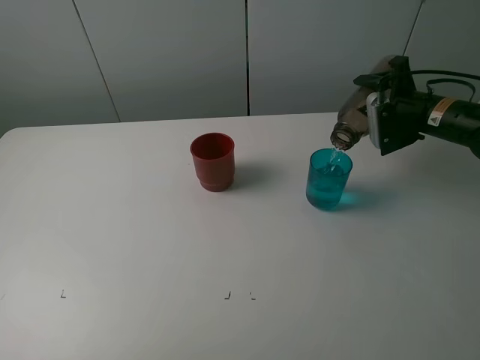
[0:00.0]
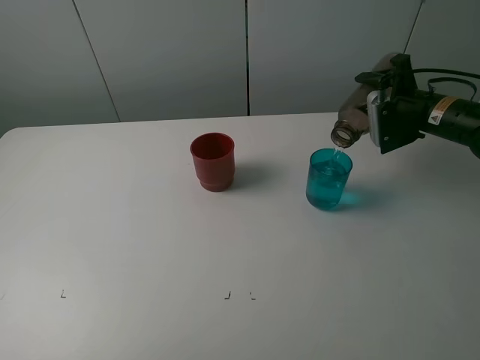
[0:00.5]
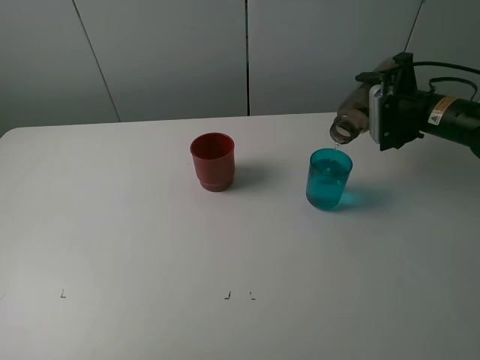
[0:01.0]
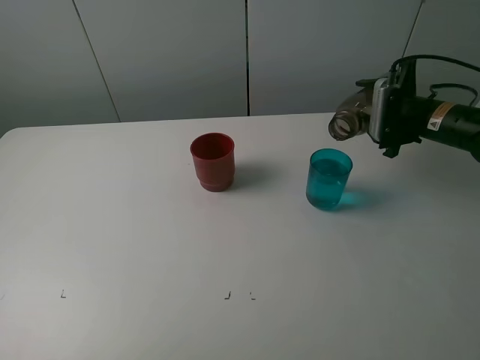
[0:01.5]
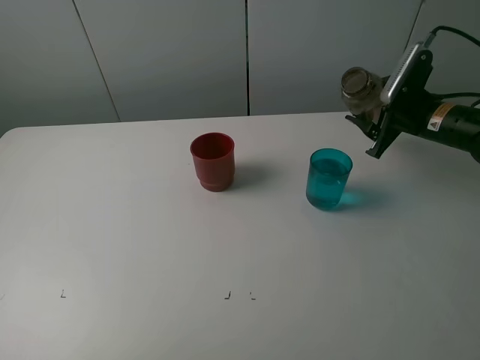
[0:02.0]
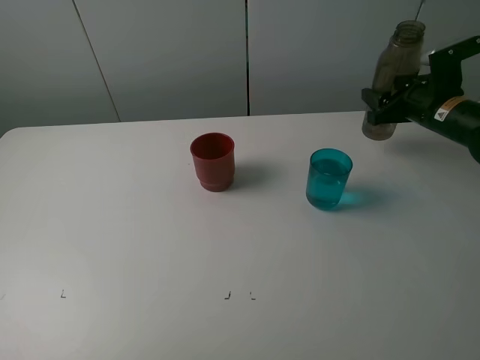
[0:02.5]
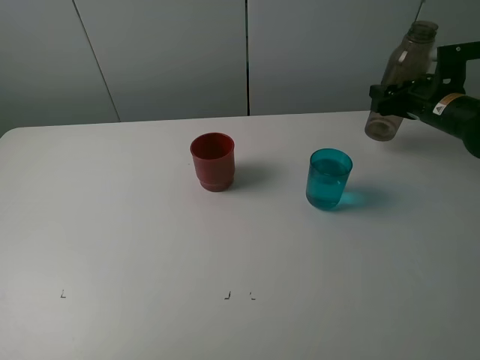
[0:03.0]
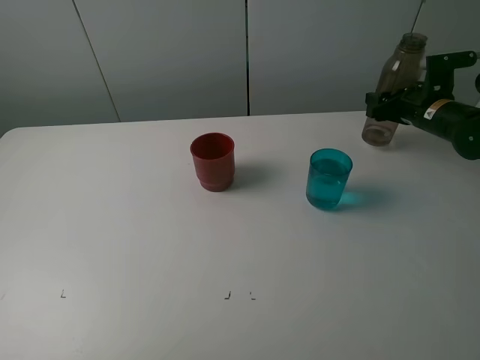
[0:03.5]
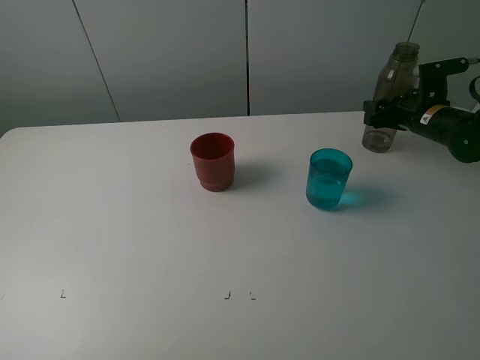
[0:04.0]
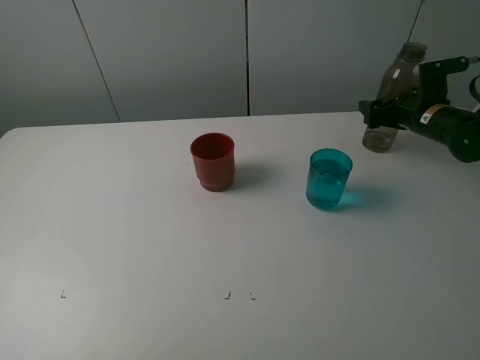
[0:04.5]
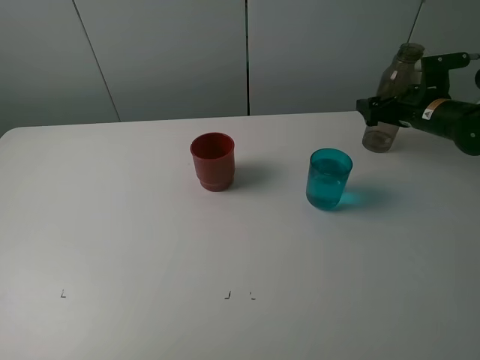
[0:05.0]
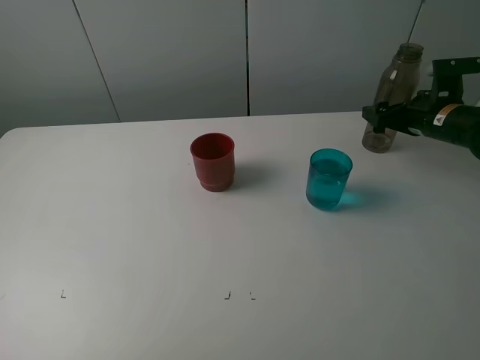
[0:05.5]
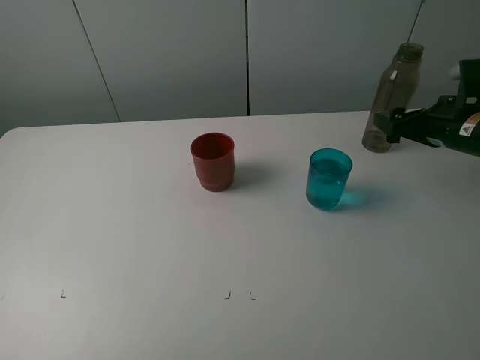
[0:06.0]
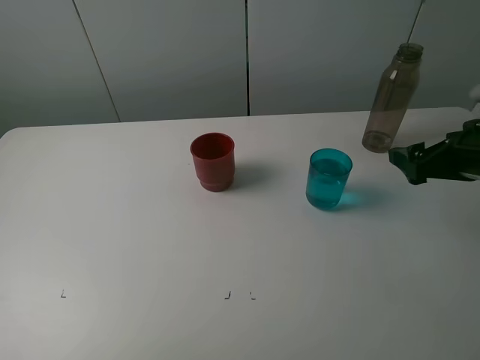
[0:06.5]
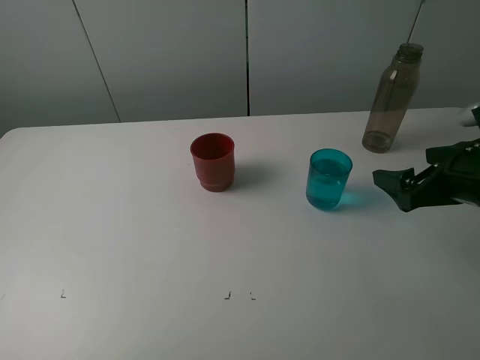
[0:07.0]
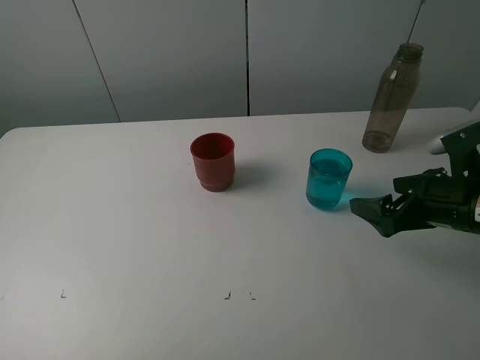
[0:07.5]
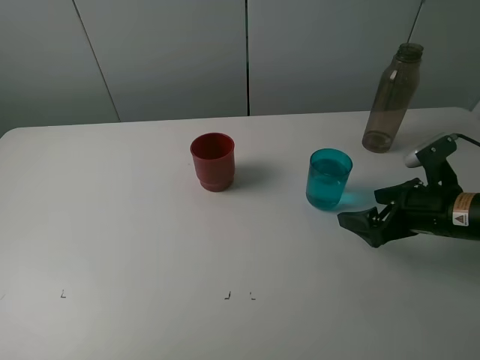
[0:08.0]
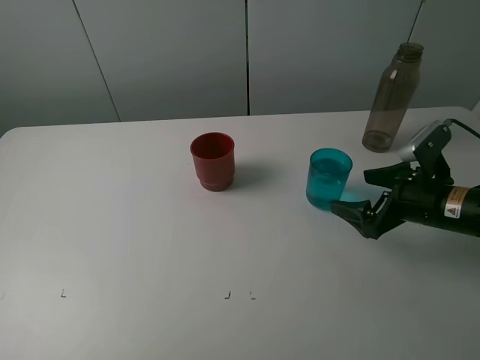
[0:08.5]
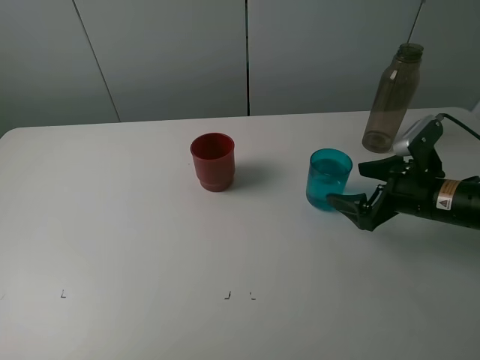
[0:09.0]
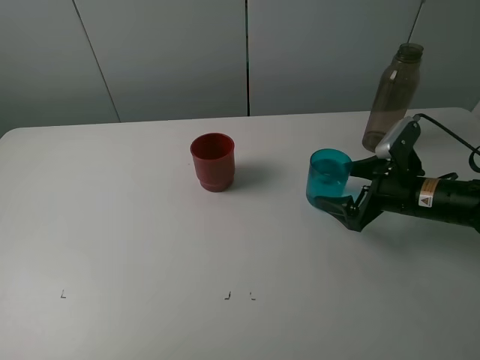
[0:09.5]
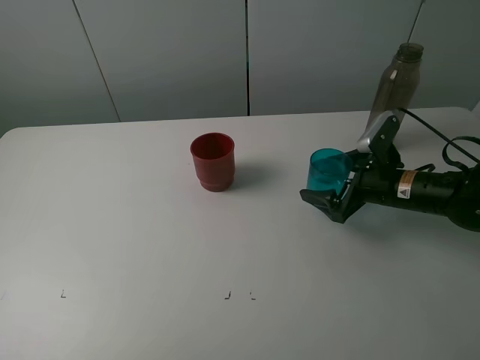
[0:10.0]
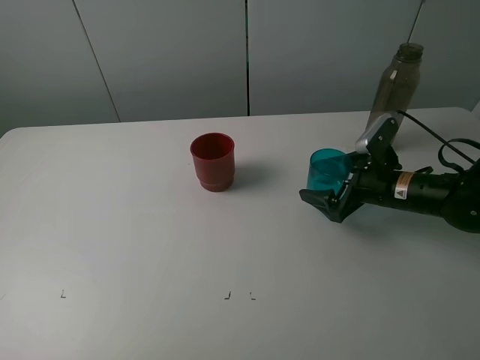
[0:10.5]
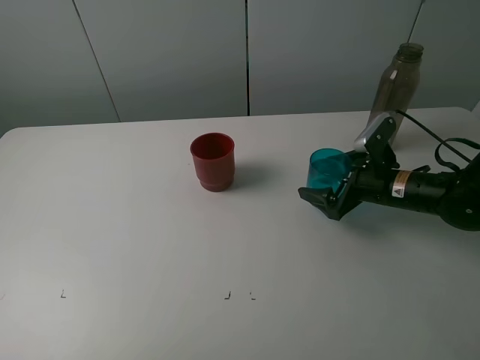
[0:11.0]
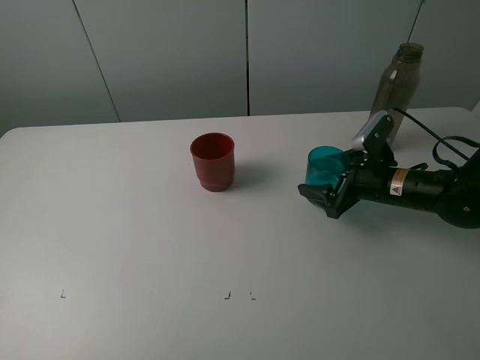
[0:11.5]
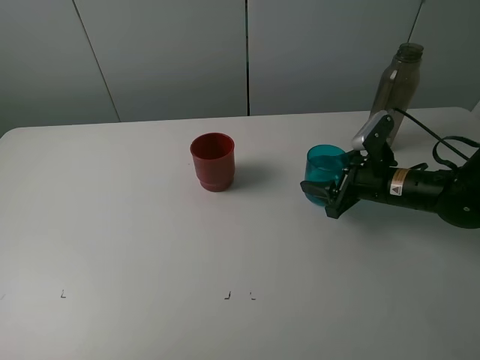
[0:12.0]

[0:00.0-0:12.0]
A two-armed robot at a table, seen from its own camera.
Task of the whole recording: pick up the bottle and pour water into the cup, then pick up the cup containing water and pour it into another cup.
Step, 0:01.5 to 0:04.5: Place the brown bottle with the right gripper.
Step, 0:05.0 to 0:11.0: Grasp the blue cup with the right gripper.
0:02.0 to 0:04.0: The right gripper shifts by roughly 5 cm.
0:04.0 to 0:06.0: The right gripper travels backward and upward by roughly 10 cm, and opens its fingers.
0:06.0 to 0:08.0: The right gripper goes some 10 cm backward and downward.
0:08.0 to 0:10.0: The right gripper is displaced forward by approximately 5 cm.
0:10.0 to 0:12.0: The right gripper closes its fingers.

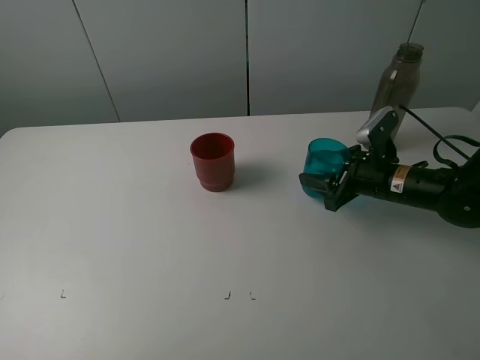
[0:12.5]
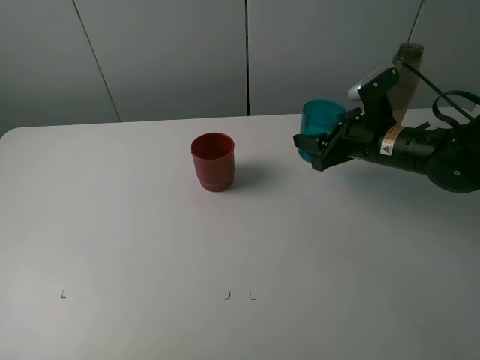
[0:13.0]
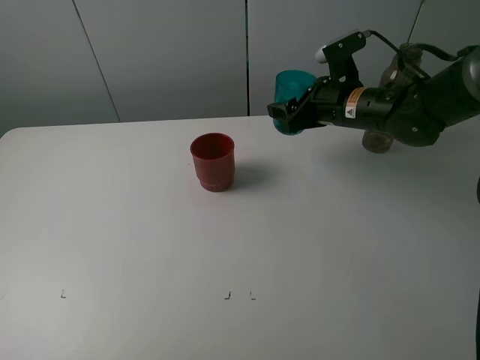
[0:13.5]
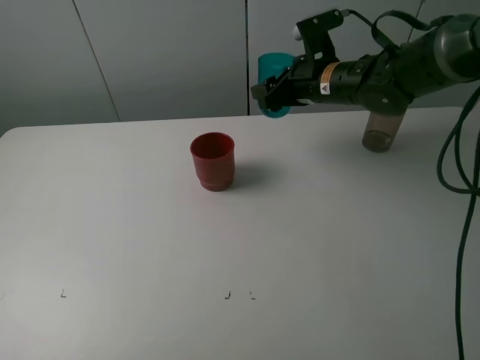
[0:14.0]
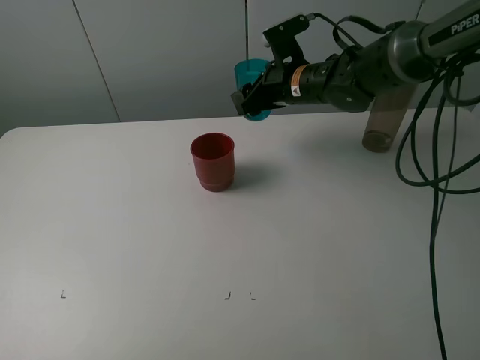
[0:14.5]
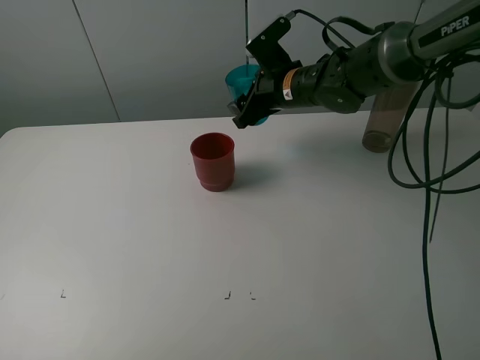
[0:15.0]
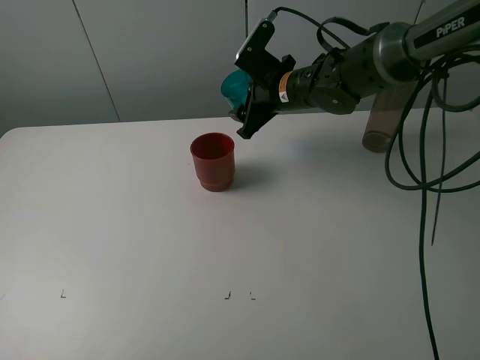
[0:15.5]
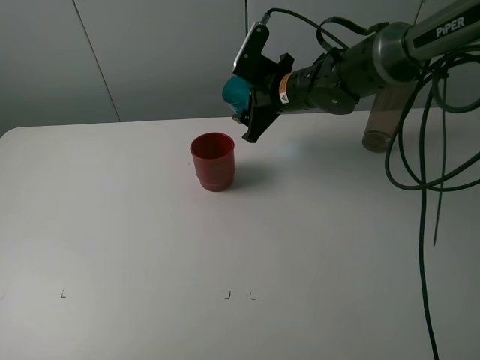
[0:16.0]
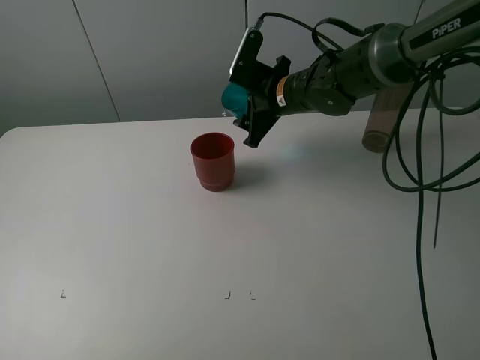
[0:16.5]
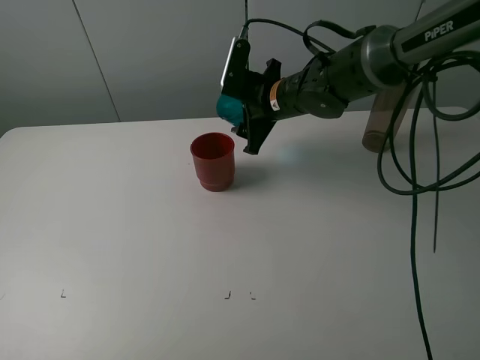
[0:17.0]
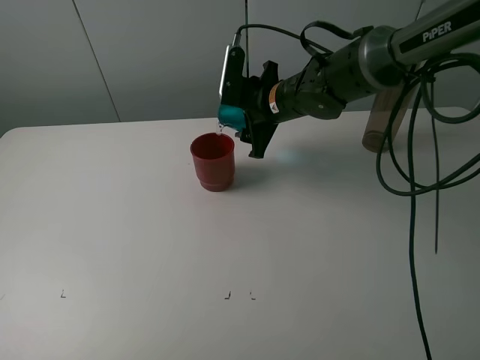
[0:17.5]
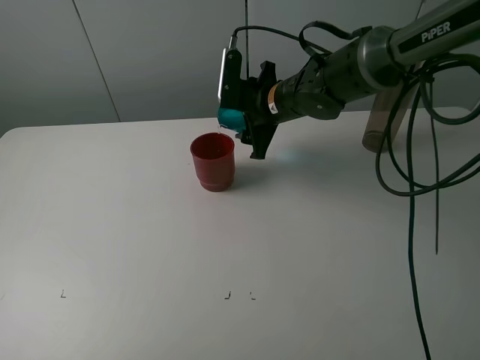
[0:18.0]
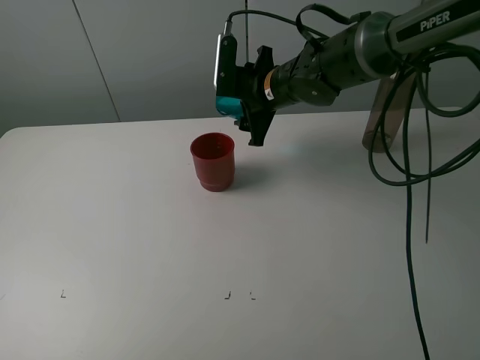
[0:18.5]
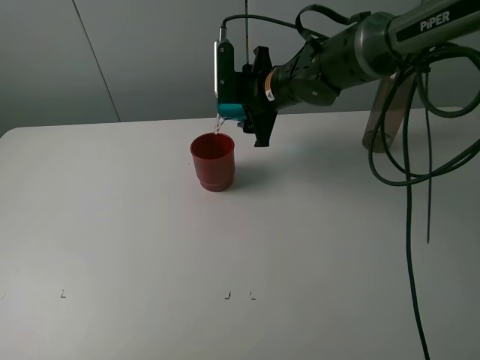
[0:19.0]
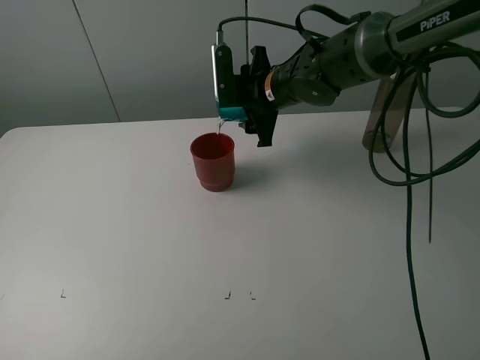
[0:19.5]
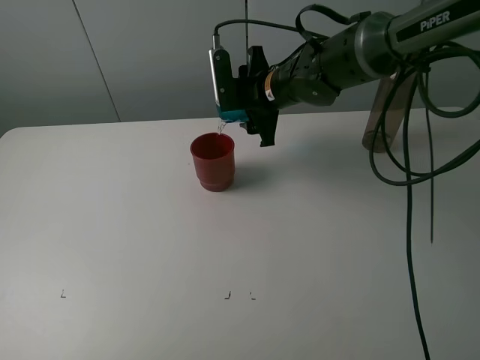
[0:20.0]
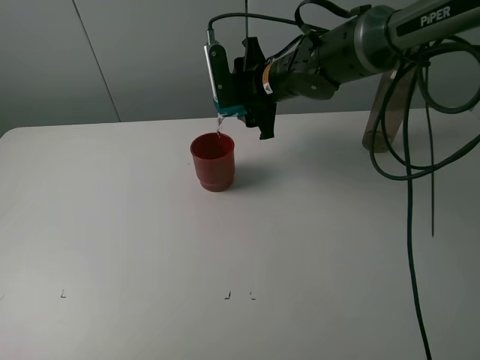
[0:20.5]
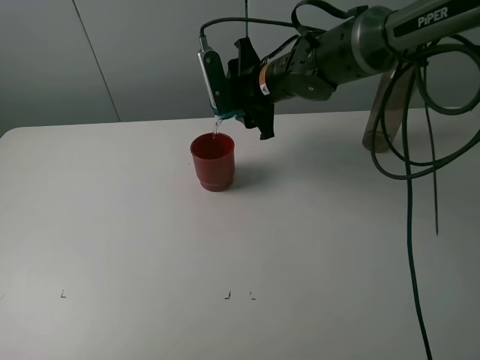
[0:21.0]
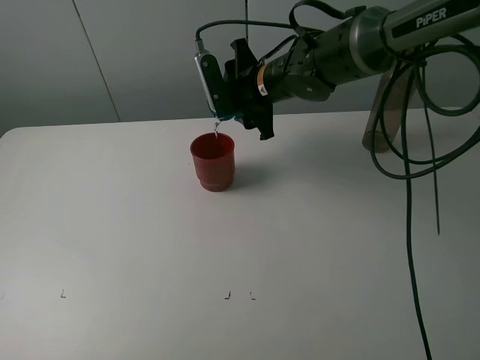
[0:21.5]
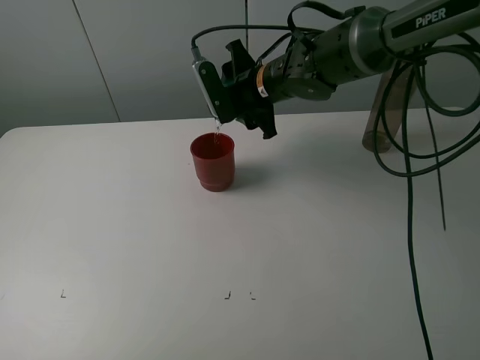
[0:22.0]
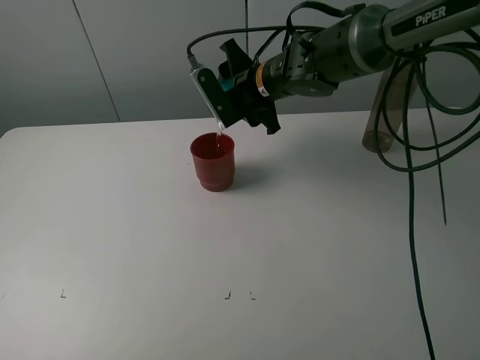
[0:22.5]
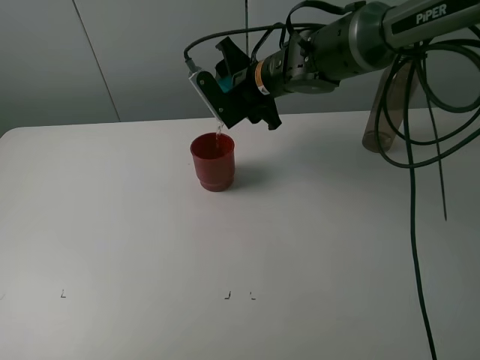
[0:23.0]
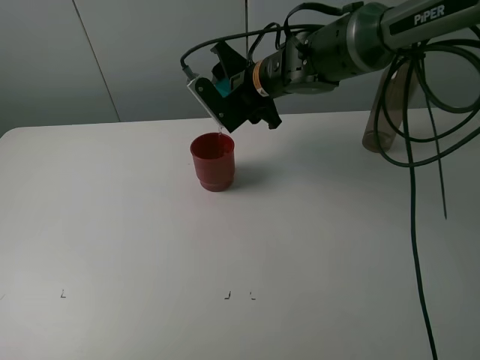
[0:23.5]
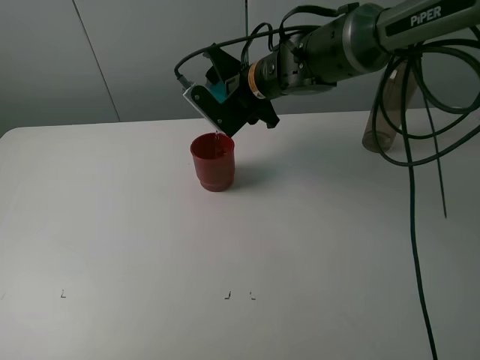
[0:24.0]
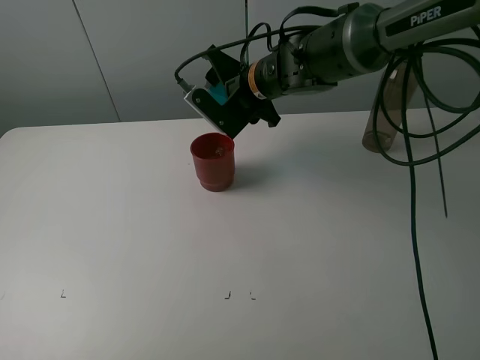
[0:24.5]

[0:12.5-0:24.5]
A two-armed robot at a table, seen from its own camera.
Task of the whole recording: pick up the bottle and pour water into the cup, then pick up the cup containing water and pour it into another cup.
0:12.5 to 0:14.5: The right gripper is displaced to the left, forward and upward by roughly 20 cm.
0:16.5 to 0:18.5: The grippers move only a little.
0:18.5 to 0:20.5: The grippers stay close to where they were, moving slightly.
0:22.5 to 0:24.5: The grippers stay close to where they were, moving slightly.

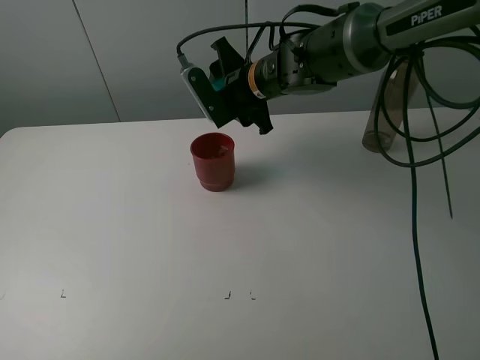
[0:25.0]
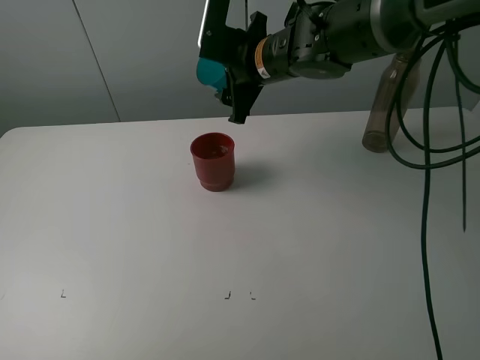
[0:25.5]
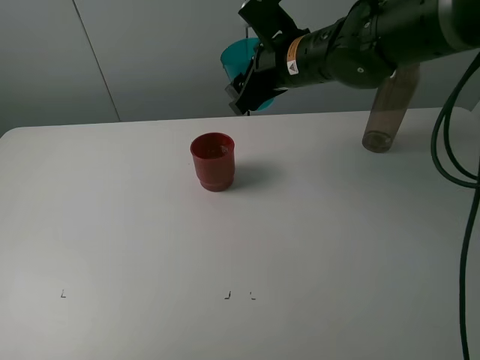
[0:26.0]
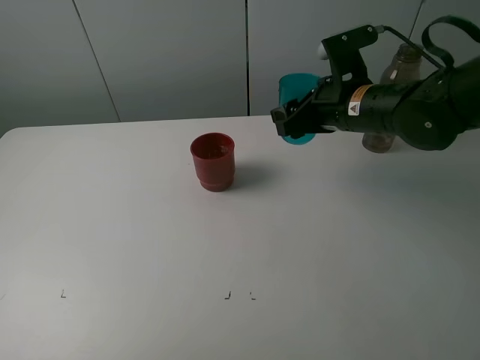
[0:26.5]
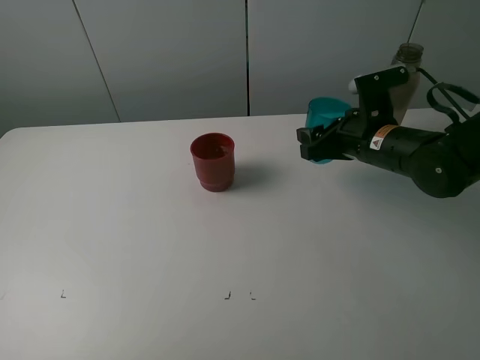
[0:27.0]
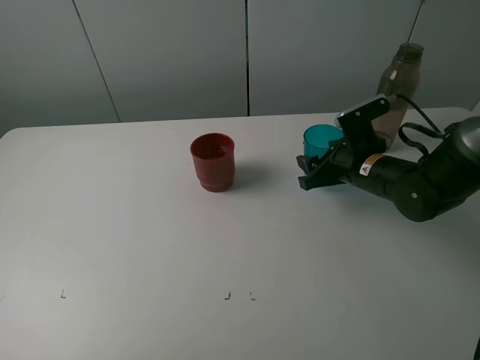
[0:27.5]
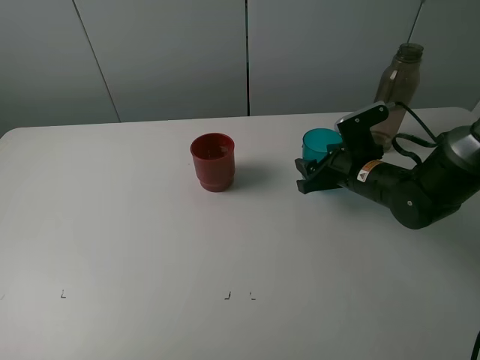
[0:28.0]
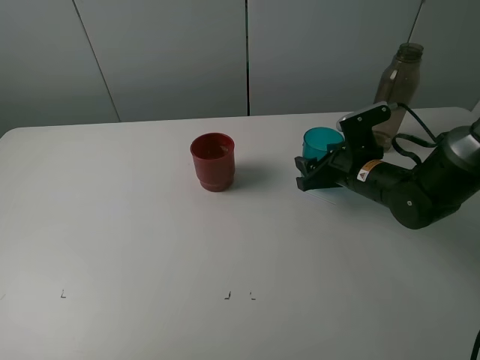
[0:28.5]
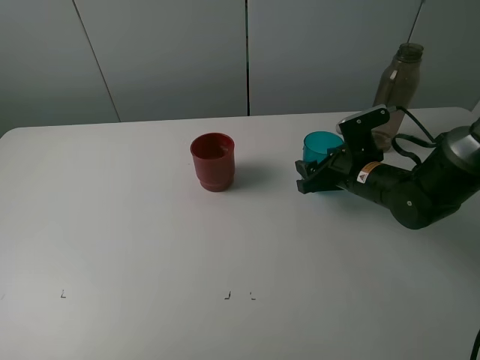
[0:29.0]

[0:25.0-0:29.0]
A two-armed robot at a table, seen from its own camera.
Task of the whole recording: pick up the bottle and pour water into the cup, then pick up the cup containing water and pour it into another cup.
0:25.0 to 0:27.0: The right gripper shifts about 20 cm to the right and backward.
0:27.0 to 0:29.0: The right gripper moves downward, roughly 5 cm.
